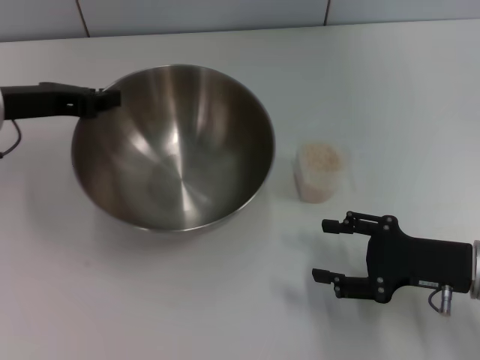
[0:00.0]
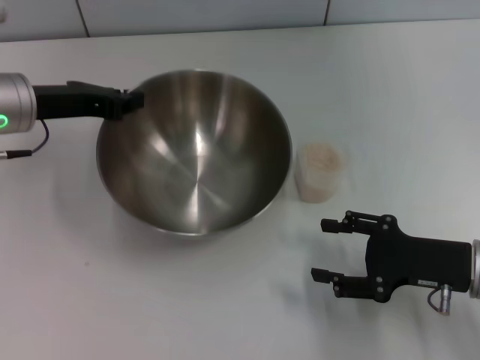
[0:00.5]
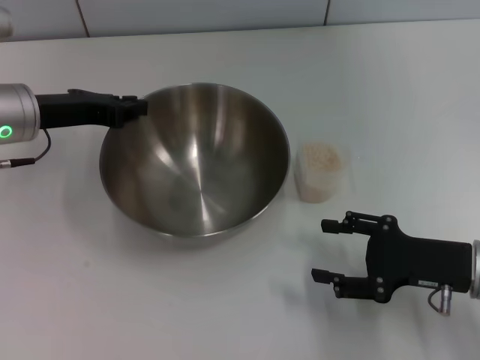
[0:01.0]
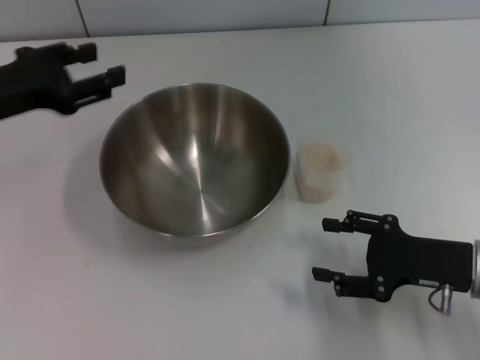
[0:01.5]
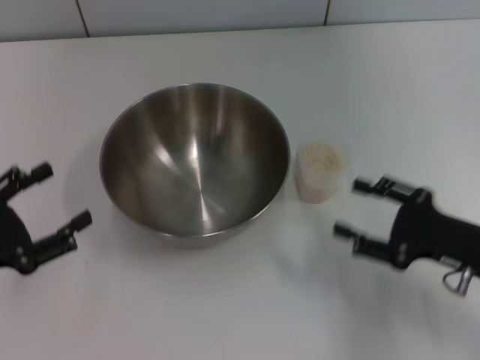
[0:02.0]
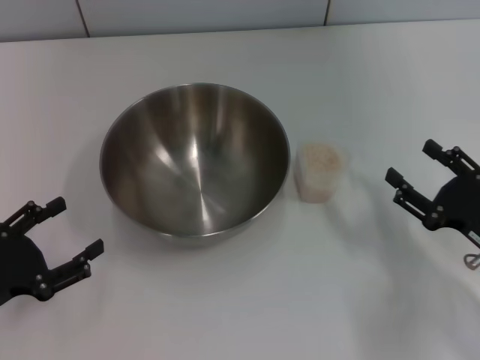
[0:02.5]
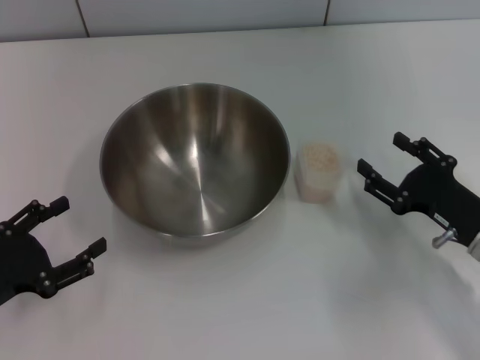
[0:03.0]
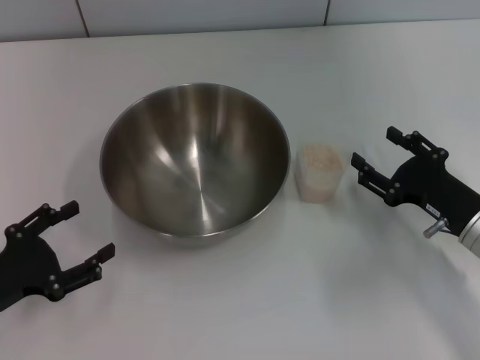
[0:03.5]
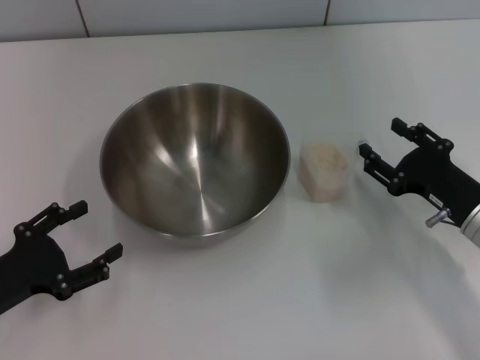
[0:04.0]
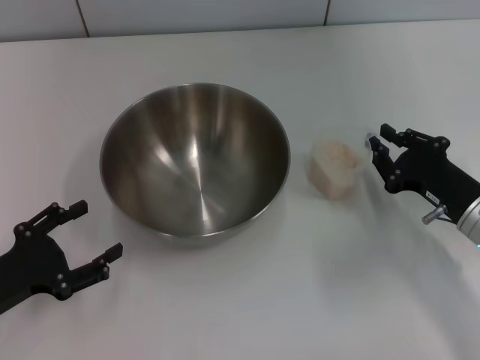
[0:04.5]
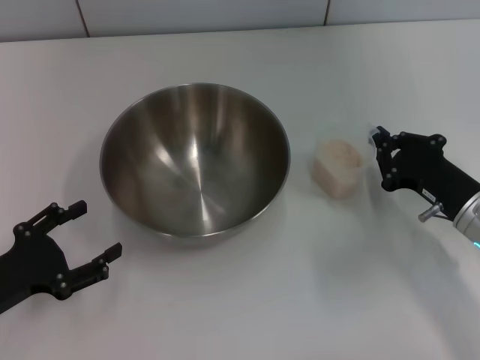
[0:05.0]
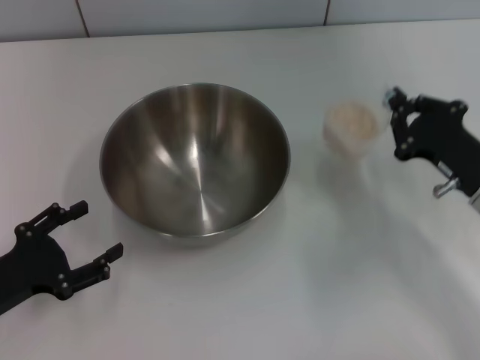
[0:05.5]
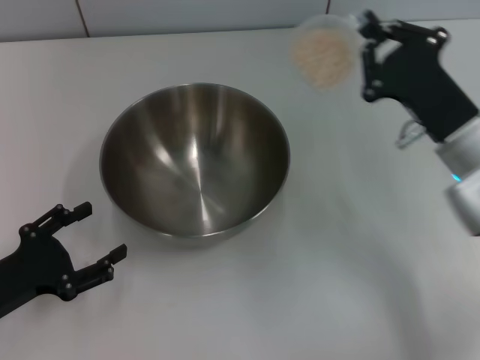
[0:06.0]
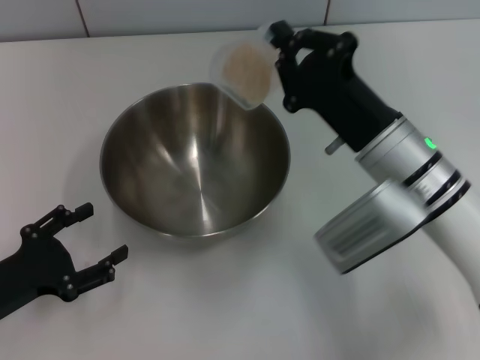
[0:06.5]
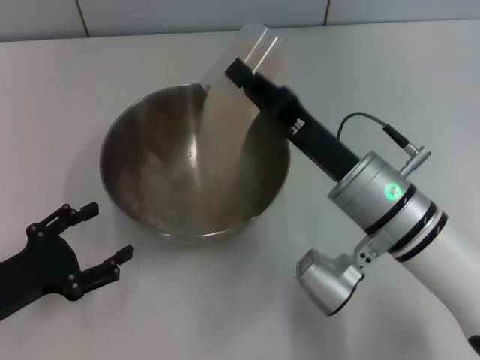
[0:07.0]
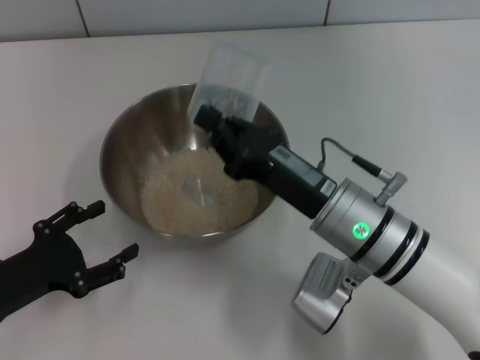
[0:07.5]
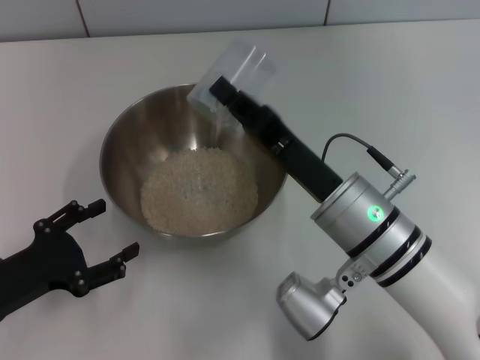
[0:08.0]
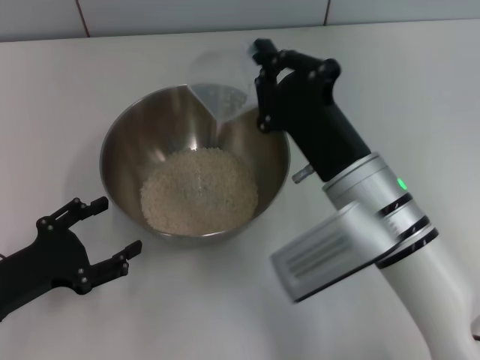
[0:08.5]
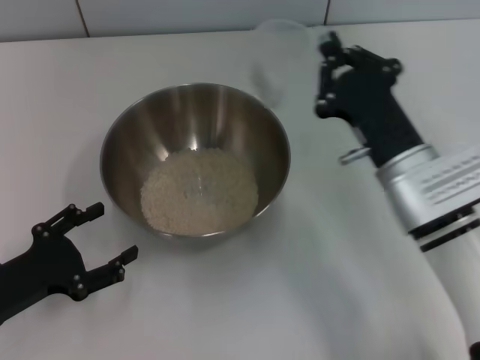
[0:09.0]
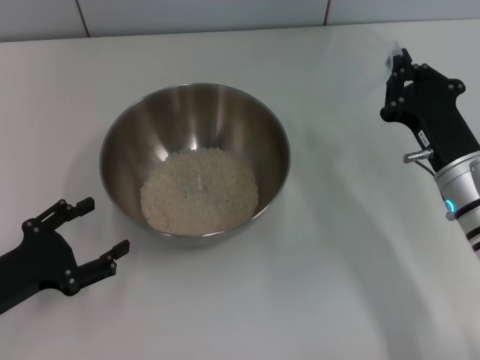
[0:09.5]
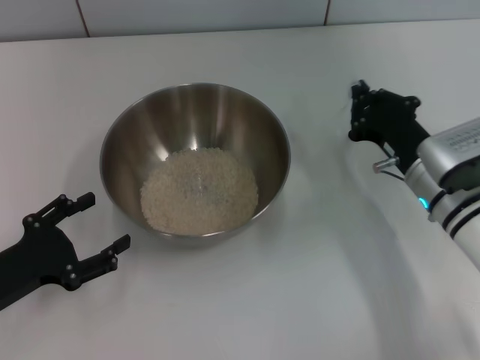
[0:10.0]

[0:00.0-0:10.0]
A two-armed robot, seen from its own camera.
Task of the whole recording: Place the bowl in the middle of the table with one hand and pour the rice from the grain cup into it with the other hand.
Step, 0:00.0 to 0:01.0: Place the bowl in the center of view with the left gripper.
Step, 0:01.5 to 0:05.0: Pick up the cup with rice in it with the right gripper.
Step, 0:06.0 to 0:09.0: Pour the rice from the cup into the bowl with the right gripper.
0:00.0 to 0:02.0: The left gripper travels backward and downward by about 20 cm, and opens up.
0:04.0 to 0:06.0: The right gripper goes roughly 5 cm upward, and closes.
0:06.0 to 0:08.0: The right gripper travels to the left by some 10 cm.
0:08.0 to 0:10.0: The right gripper travels to the right and forward by about 10 cm.

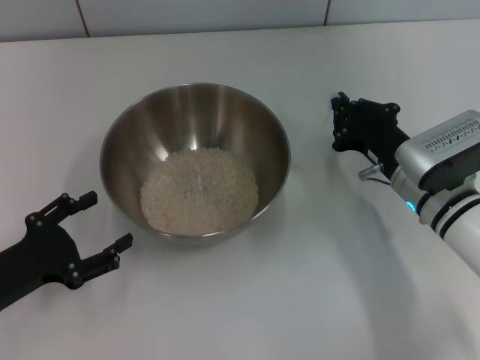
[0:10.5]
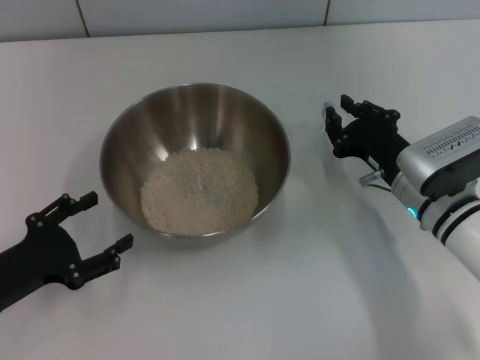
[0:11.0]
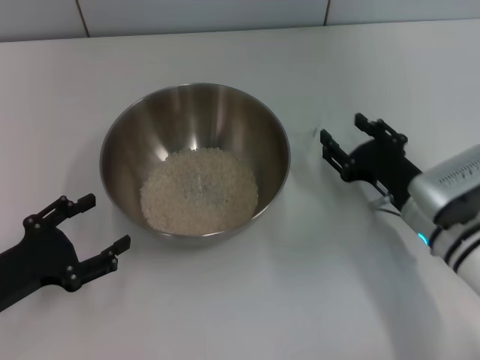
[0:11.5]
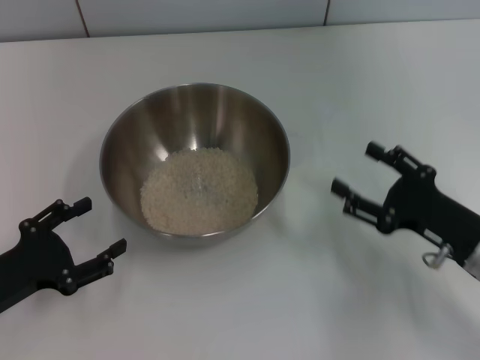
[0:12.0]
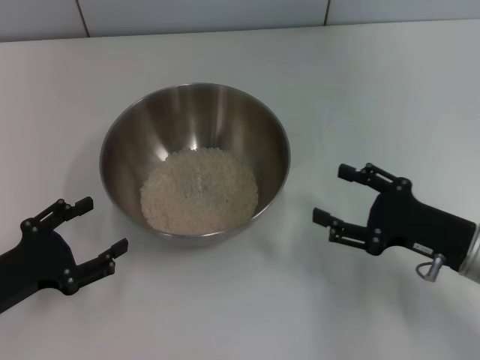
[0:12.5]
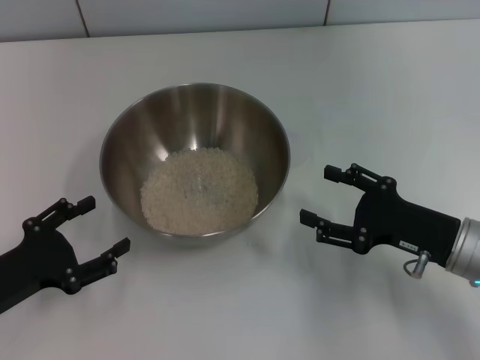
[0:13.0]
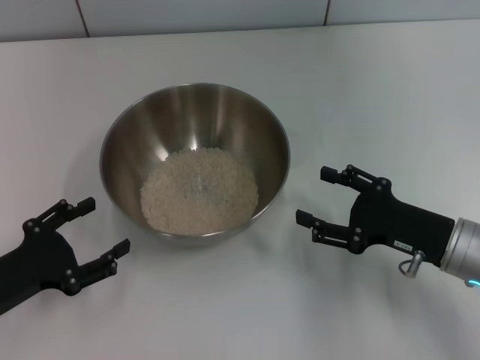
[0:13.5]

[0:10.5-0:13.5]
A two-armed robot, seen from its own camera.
Task of the whole recording: Place the bowl in the middle of the table with one hand and pour the rice from the grain cup into it with the other hand.
0:10.5 to 0:12.0: The right gripper moves backward and to the right, roughly 10 cm, and opens its fingers.
0:12.0 to 0:13.5: The grippers make only small movements.

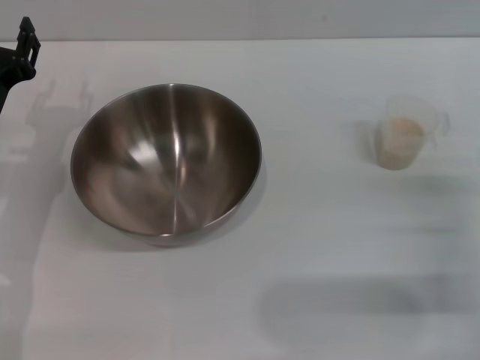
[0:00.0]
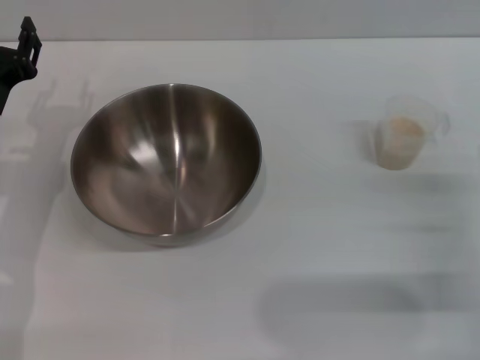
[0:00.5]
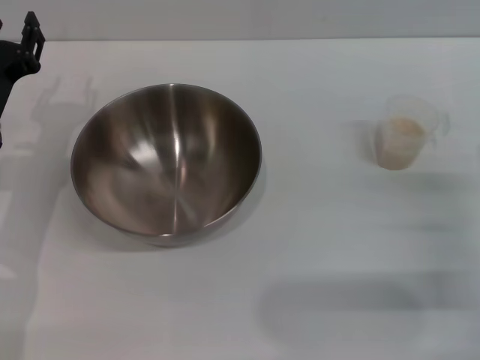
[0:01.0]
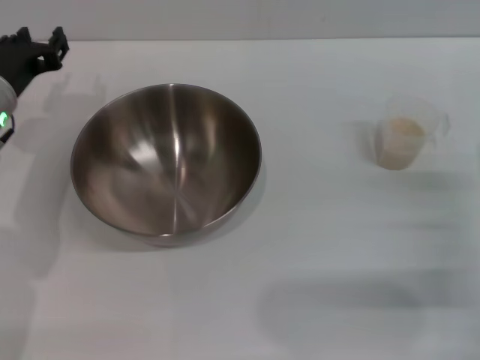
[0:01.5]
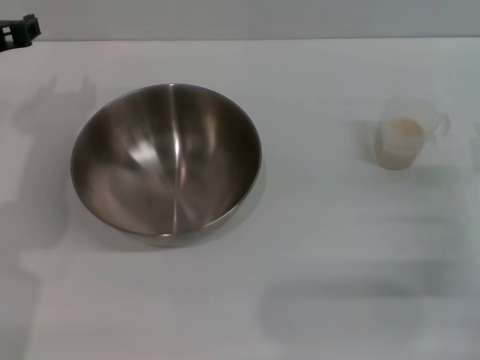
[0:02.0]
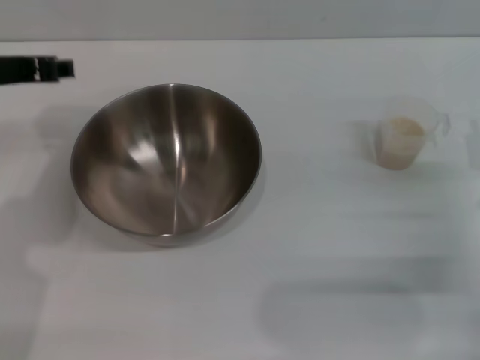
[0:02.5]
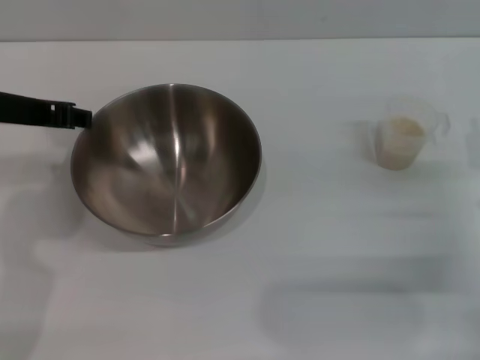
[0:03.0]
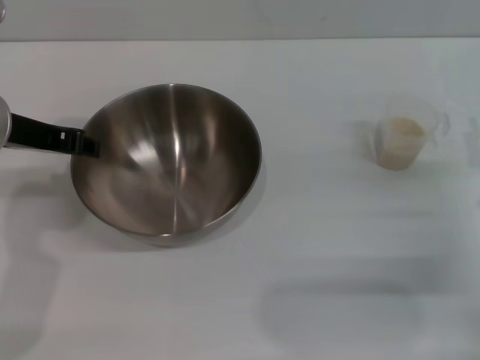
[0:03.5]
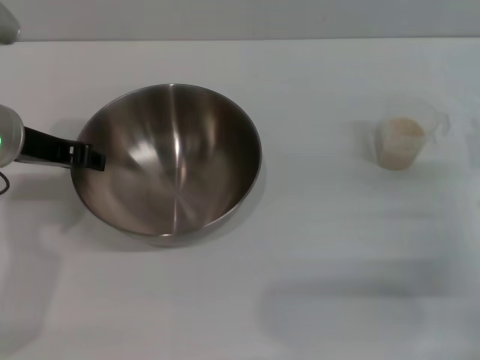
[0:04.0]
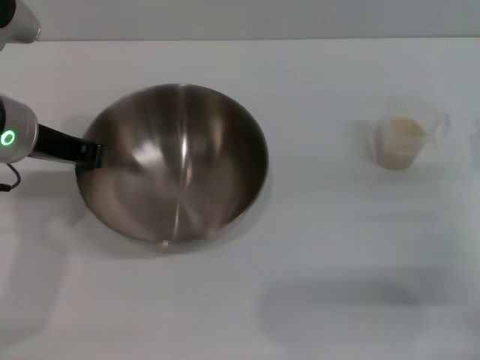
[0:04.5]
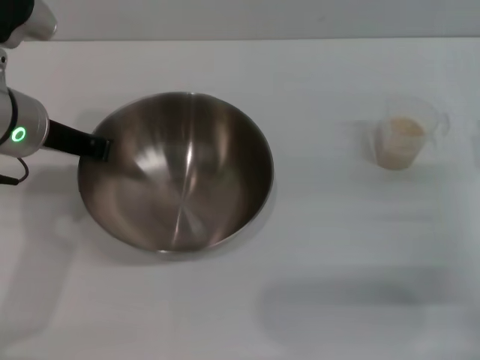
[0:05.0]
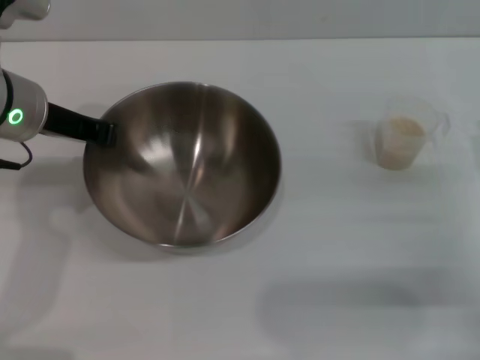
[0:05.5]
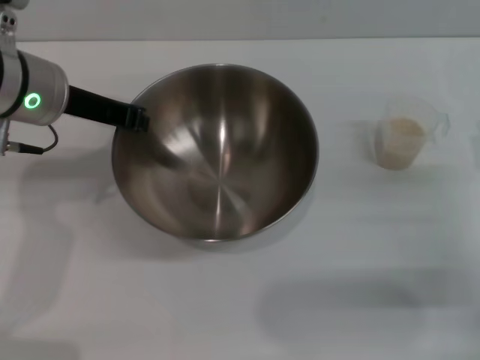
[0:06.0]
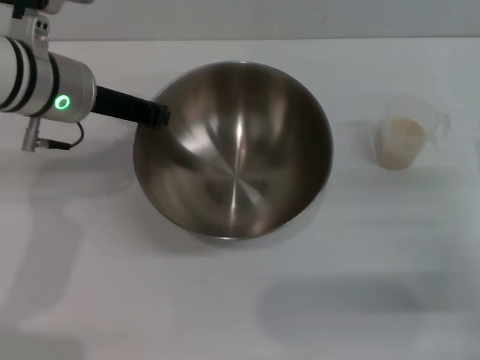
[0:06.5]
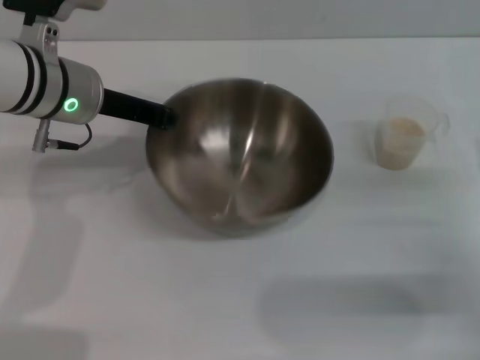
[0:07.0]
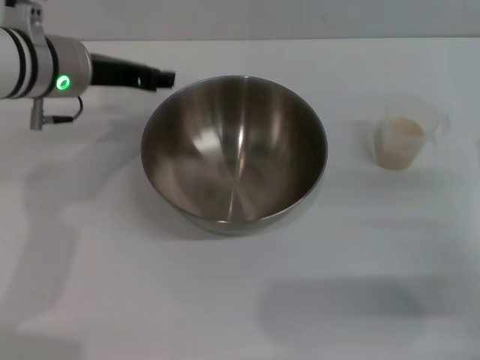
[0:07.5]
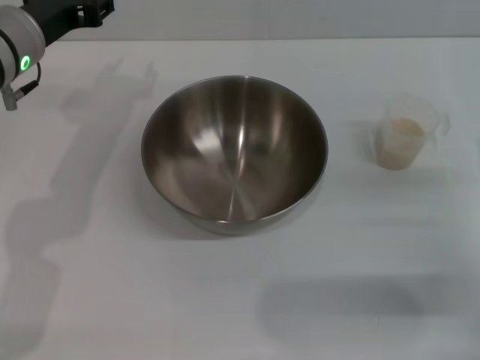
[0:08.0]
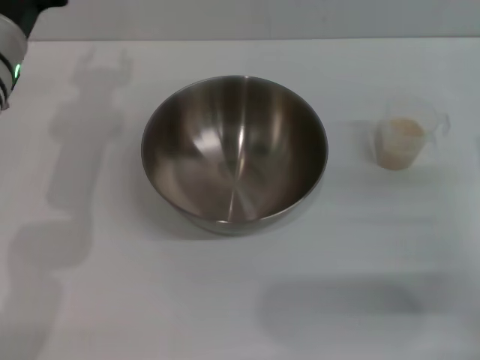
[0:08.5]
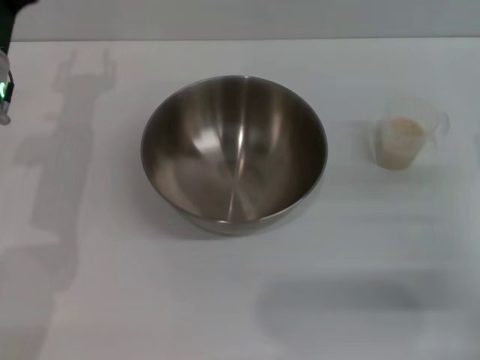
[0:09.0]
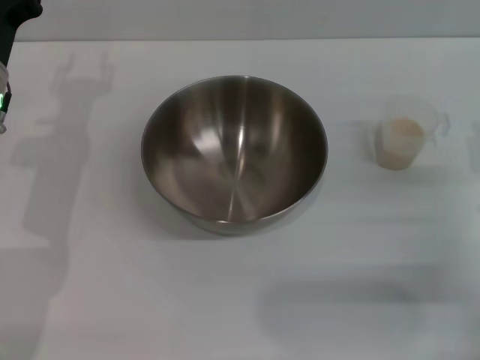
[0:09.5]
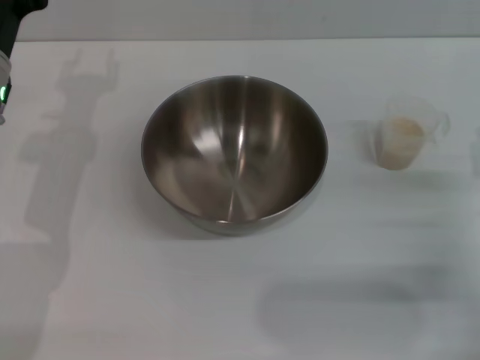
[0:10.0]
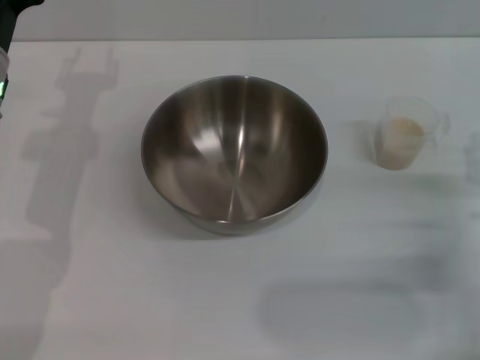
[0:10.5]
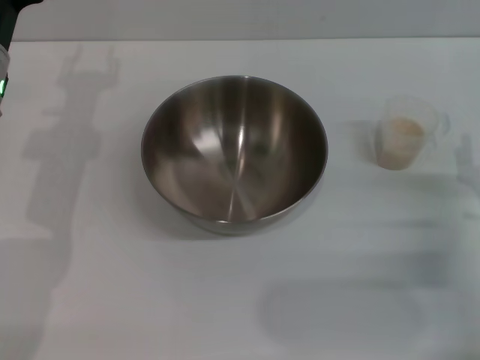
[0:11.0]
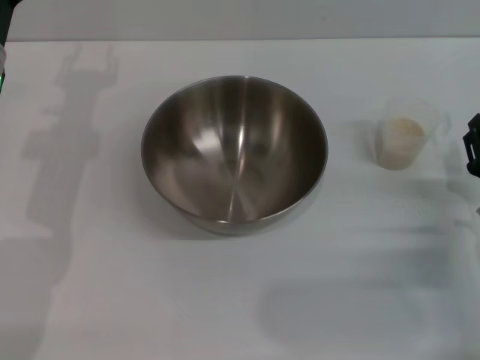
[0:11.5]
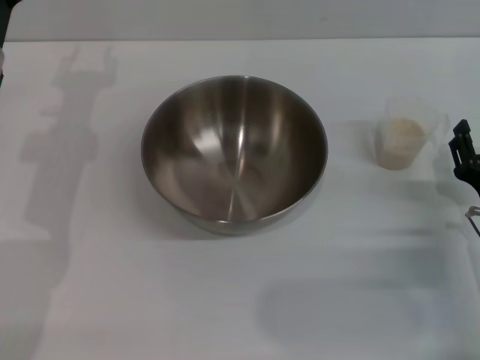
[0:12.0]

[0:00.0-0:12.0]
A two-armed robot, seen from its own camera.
Task of the whole recording: Place the bowl in the middle of the table with one hand and pour the rice from the grain cup into it with the other hand.
Step, 0:00.0 to 0:05.5: Pick up the bowl with the left gripper.
Step, 0:06.0 to 0:07.0: Place the bowl in the center of view with the left gripper.
0:00.0 to 0:02.0: The left gripper shifts some 10 cm upward.
0:02.0 to 0:04.0: The left gripper changes place by approximately 5 cm.
0:04.0 to 0:06.0: The left gripper closes its fingers.
0:06.0 to 0:08.0: The left gripper opens up.
0:08.0 to 0:10.0: The left gripper shifts by roughly 5 cm.
0:10.0 to 0:12.0: The grippers make only small movements.
